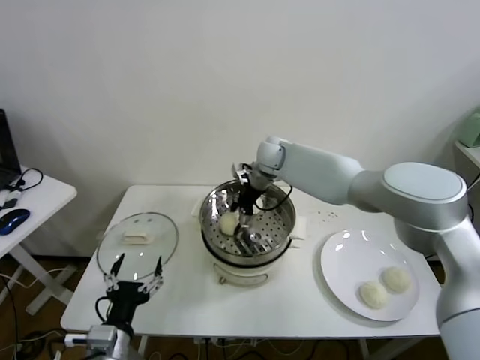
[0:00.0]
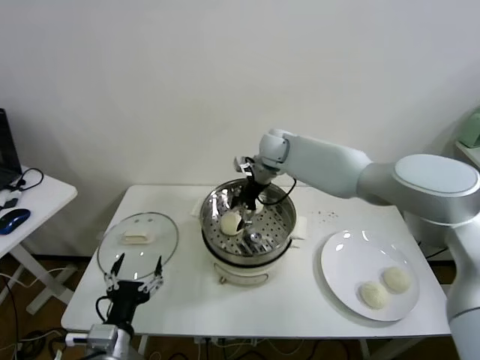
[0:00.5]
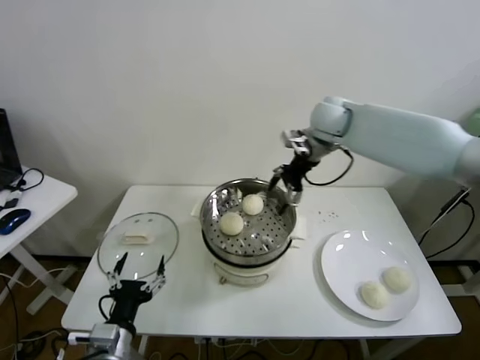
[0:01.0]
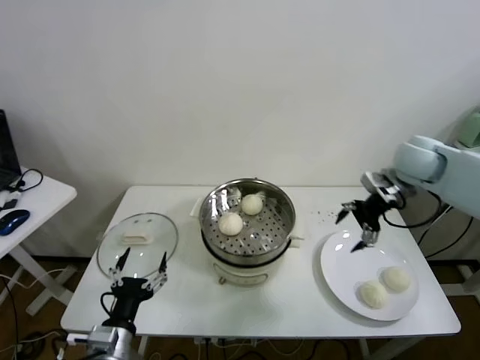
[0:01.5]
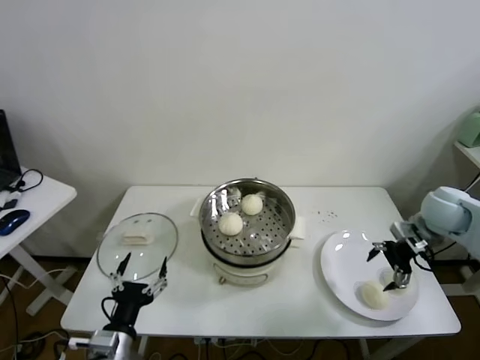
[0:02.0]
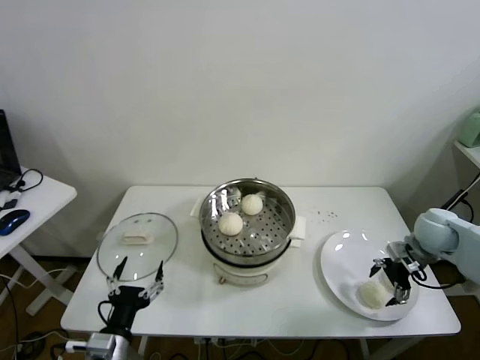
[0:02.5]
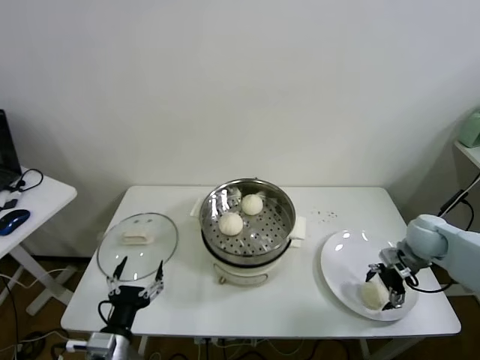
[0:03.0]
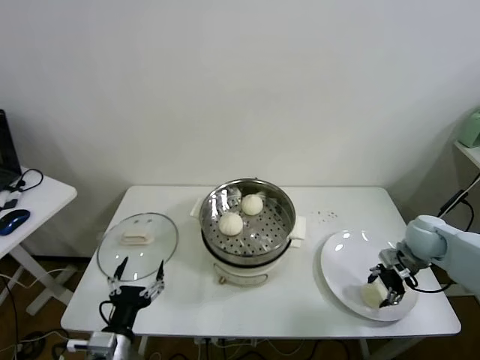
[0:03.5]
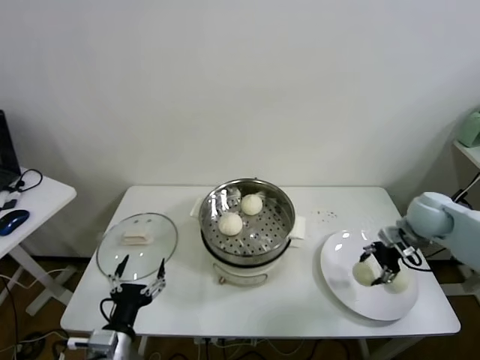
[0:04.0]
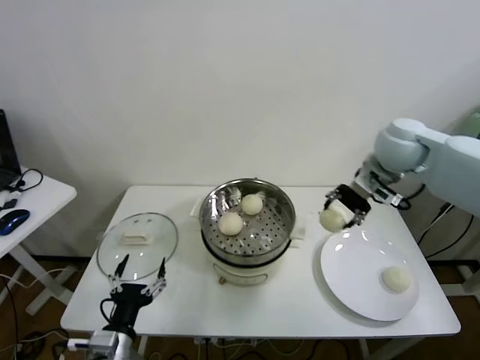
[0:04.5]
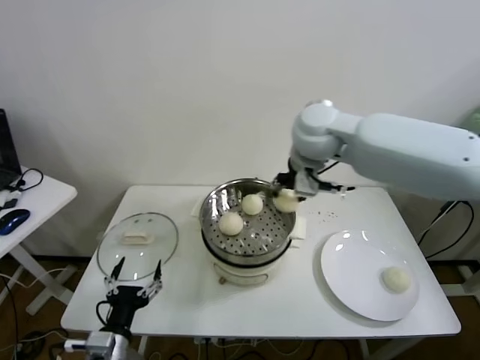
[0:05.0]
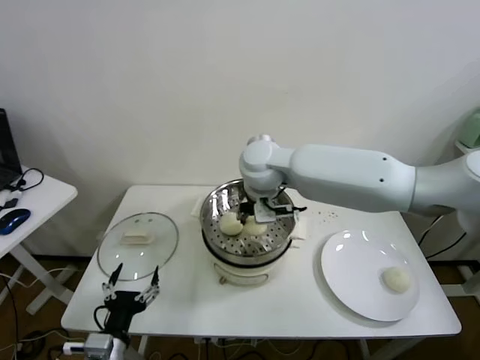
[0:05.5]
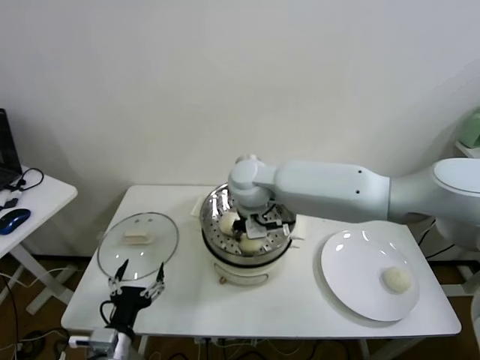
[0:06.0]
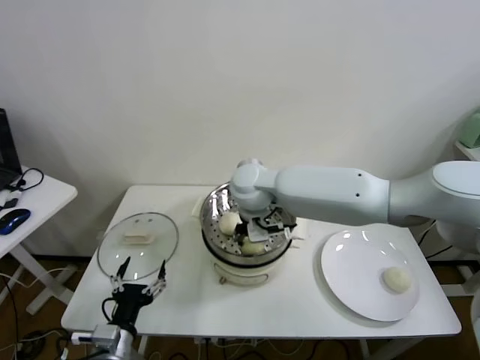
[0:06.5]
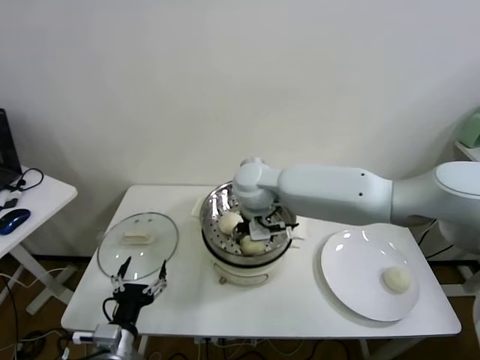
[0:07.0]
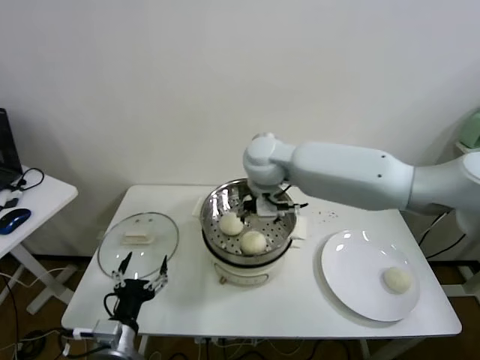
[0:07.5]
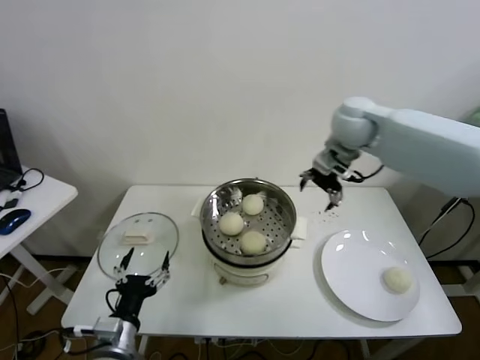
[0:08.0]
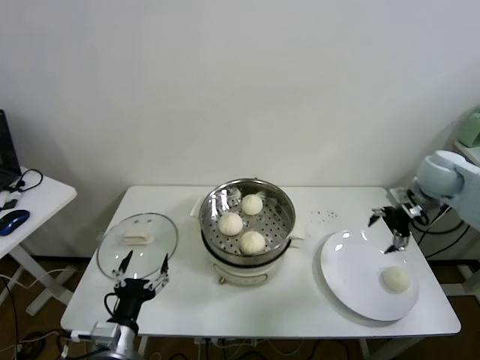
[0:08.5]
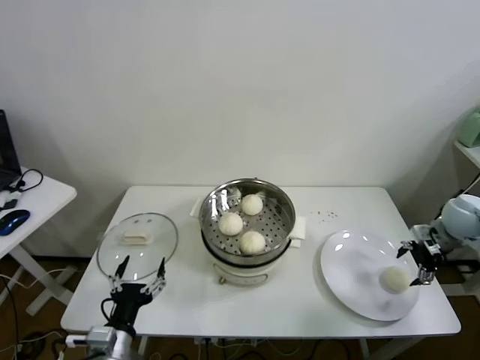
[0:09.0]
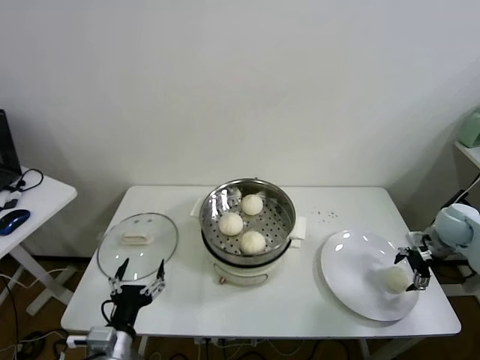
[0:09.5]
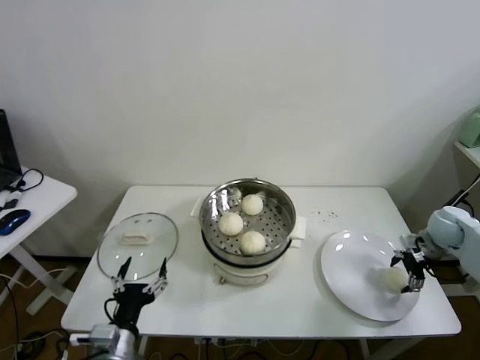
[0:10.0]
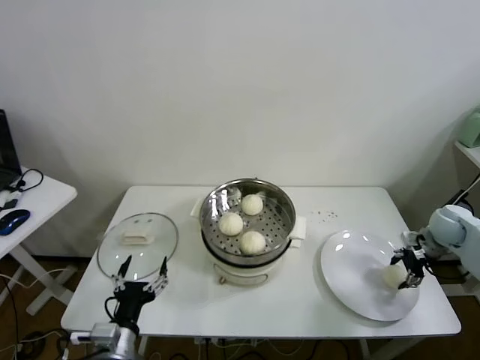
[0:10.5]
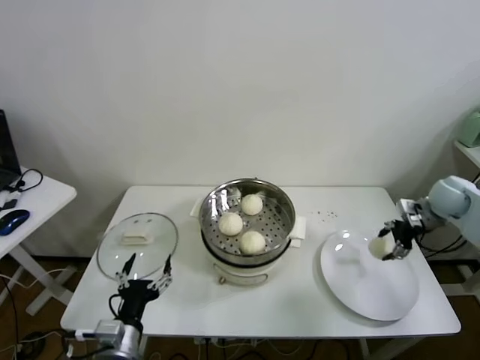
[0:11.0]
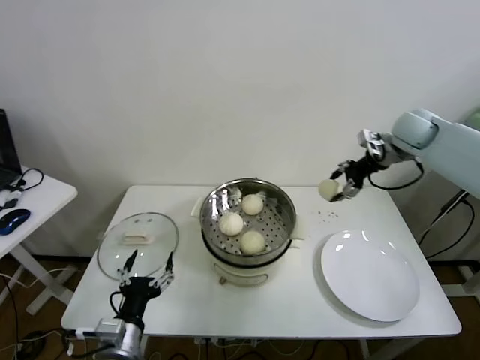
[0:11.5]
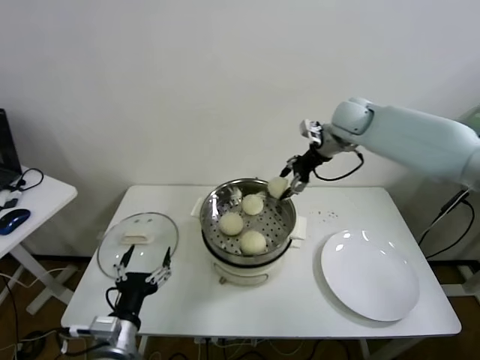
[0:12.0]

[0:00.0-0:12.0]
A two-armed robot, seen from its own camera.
Task of the whole recording: take steamed baozi put them in steamer.
Step, 0:00.5 to 0:03.0: Grasp the baozi in the plate with right gripper.
Step, 0:03.5 to 0:07.0: Place the baozi on the steamer with right gripper.
Step, 0:07.5 to 0:10.0: Grasp the baozi in the plate with right gripper.
0:00.0 to 0:02.0: The right gripper is displaced to the right and backward by approximately 40 cm.
0:02.0 to 0:04.0: The right gripper reaches about 10 cm downward, then returns, and closes.
0:04.0 to 0:06.0: The right gripper shifts approximately 40 cm to the left.
0:06.0 to 0:08.0: The right gripper heads to the right and upward, covering about 25 cm, and opens up.
0:08.0 to 0:10.0: The right gripper goes approximately 35 cm to the right and downward.
0:10.0 to 0:12.0: The right gripper is displaced to the left, upward and forward by some 35 cm, and closes up.

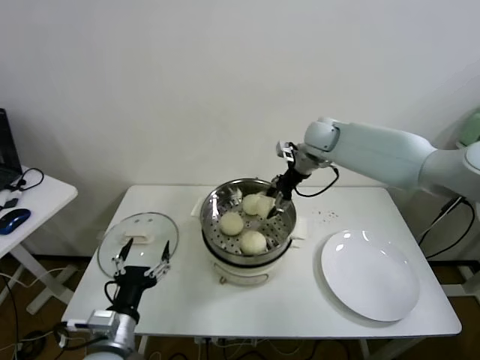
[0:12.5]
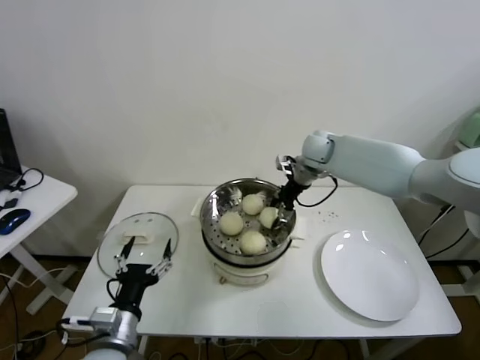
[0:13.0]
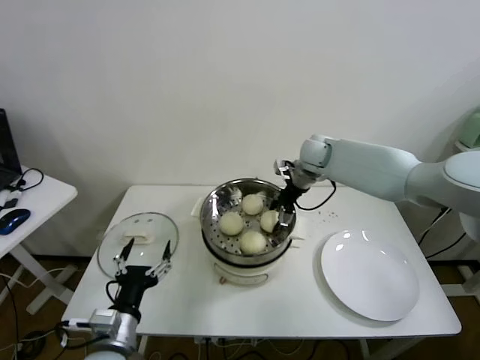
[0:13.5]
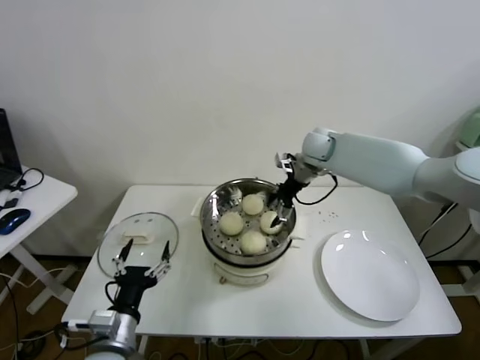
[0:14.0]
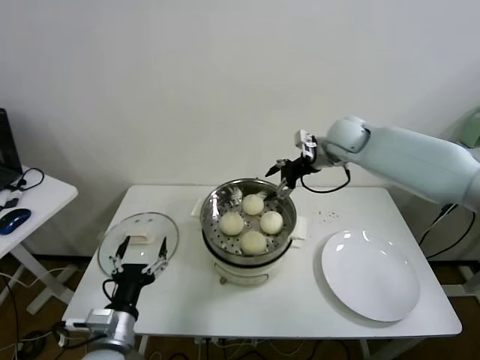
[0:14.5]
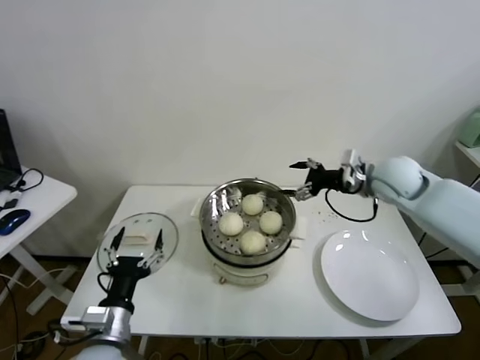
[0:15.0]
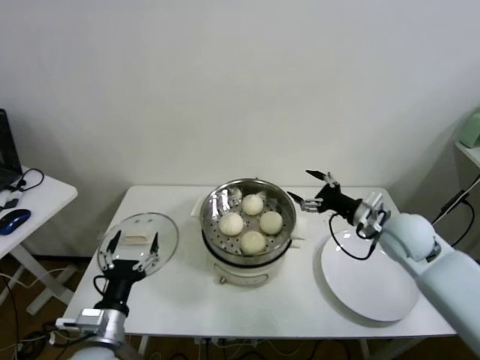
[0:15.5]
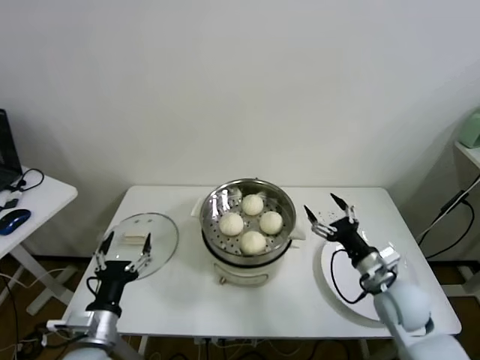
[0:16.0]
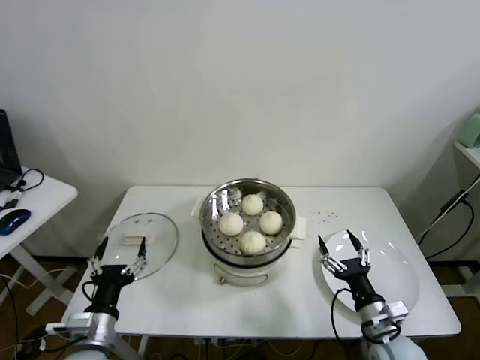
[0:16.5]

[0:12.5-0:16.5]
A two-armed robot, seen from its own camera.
Task of the whole recording: take steamed baozi put them in steamer.
0:12.5 to 0:14.5: The right gripper opens up.
0:14.5 to 0:16.5: The right gripper shifts about 50 cm backward and downward.
